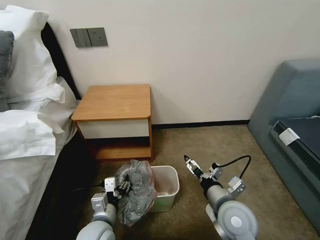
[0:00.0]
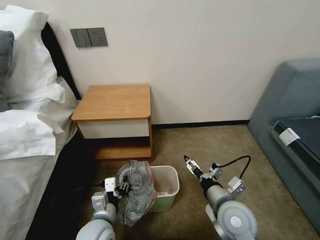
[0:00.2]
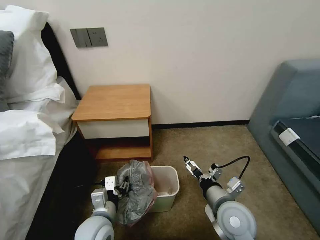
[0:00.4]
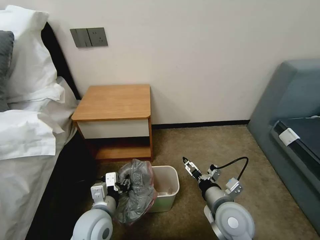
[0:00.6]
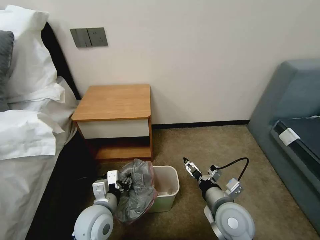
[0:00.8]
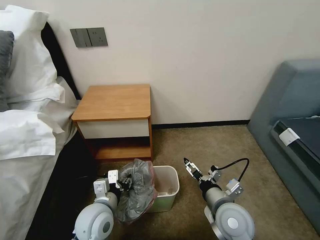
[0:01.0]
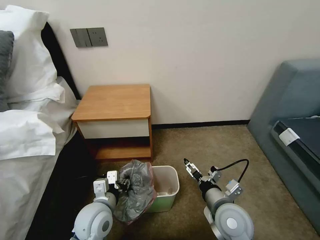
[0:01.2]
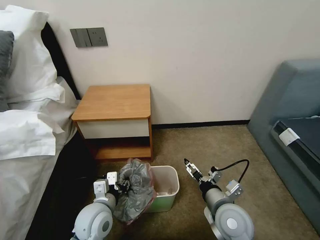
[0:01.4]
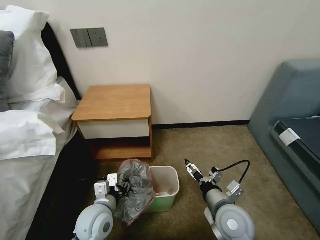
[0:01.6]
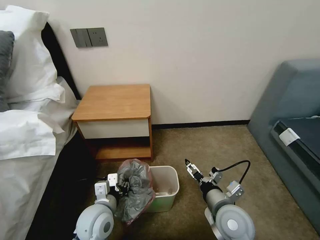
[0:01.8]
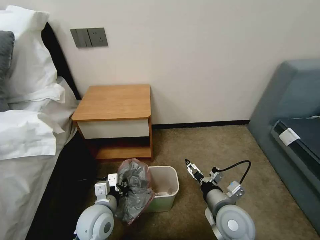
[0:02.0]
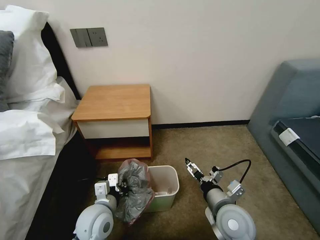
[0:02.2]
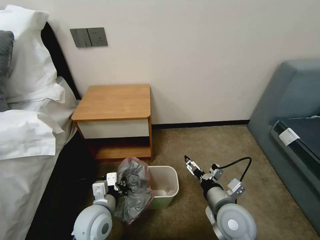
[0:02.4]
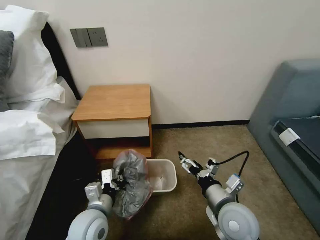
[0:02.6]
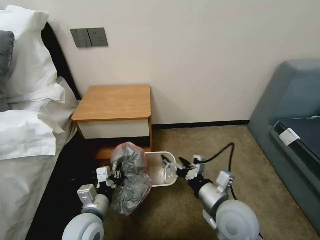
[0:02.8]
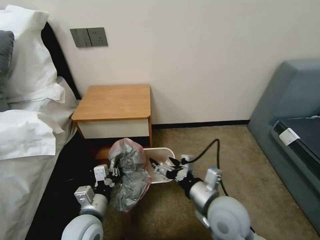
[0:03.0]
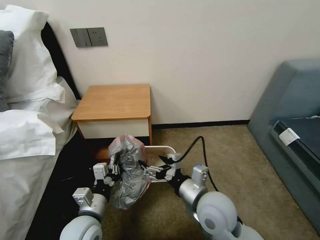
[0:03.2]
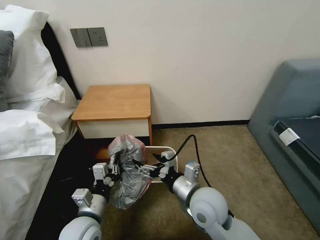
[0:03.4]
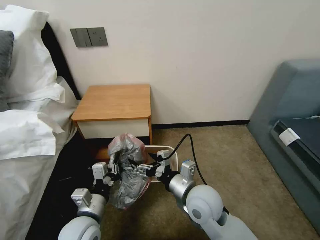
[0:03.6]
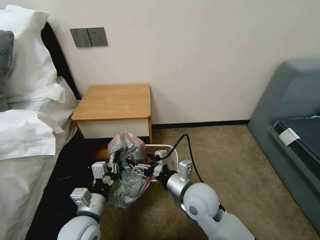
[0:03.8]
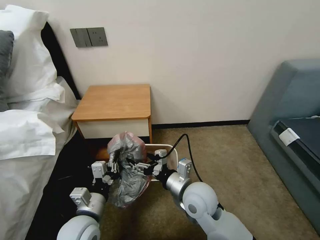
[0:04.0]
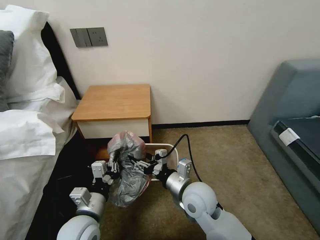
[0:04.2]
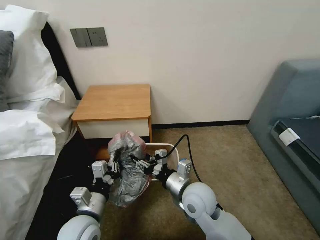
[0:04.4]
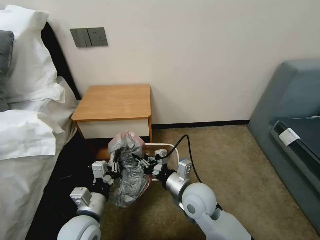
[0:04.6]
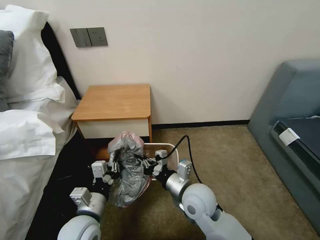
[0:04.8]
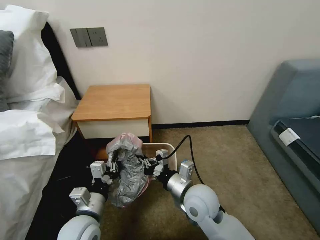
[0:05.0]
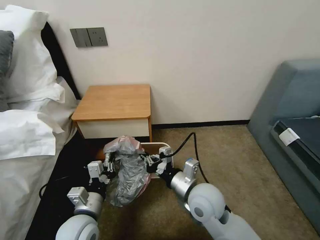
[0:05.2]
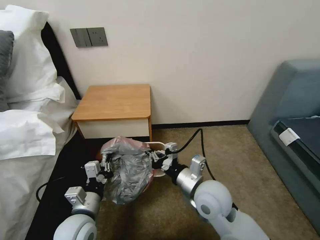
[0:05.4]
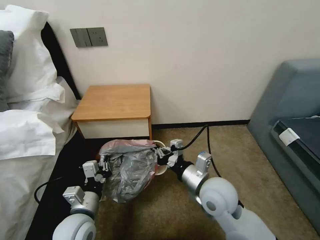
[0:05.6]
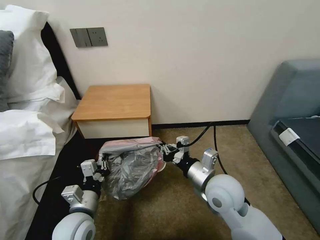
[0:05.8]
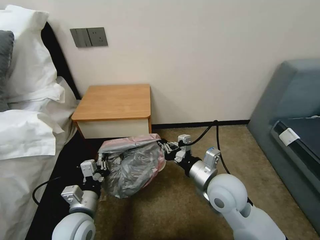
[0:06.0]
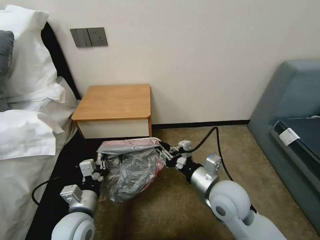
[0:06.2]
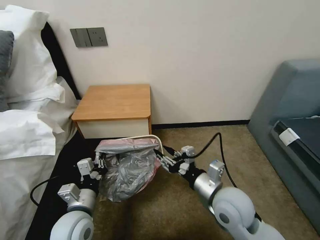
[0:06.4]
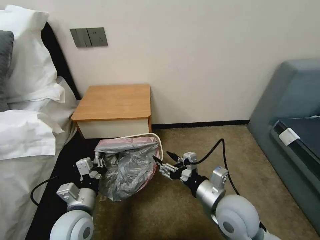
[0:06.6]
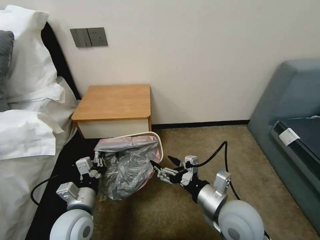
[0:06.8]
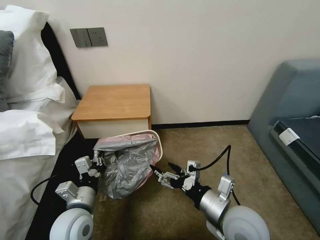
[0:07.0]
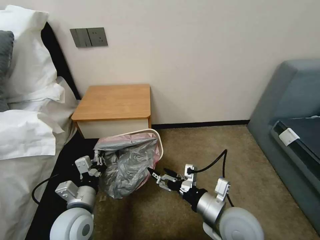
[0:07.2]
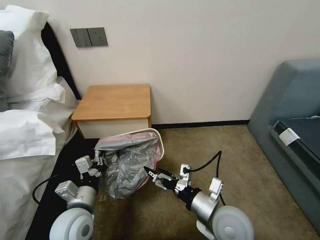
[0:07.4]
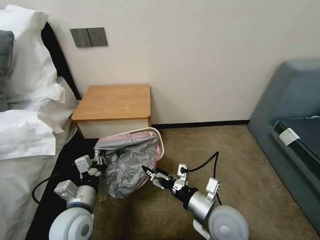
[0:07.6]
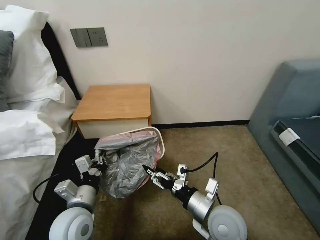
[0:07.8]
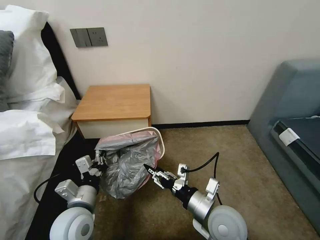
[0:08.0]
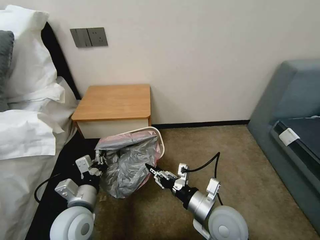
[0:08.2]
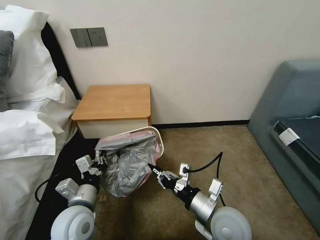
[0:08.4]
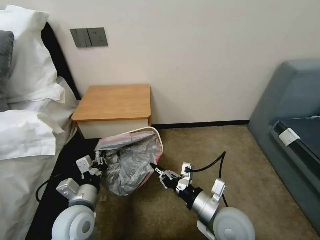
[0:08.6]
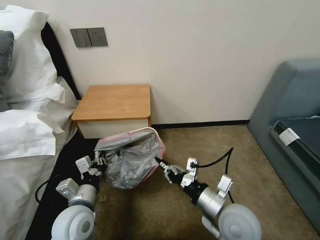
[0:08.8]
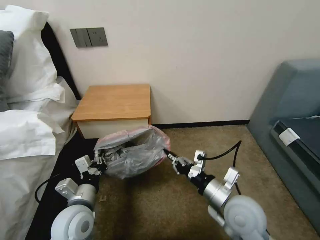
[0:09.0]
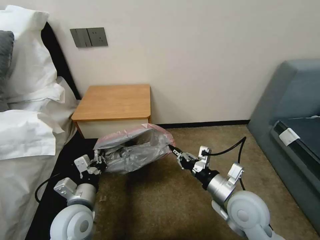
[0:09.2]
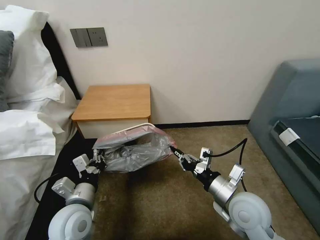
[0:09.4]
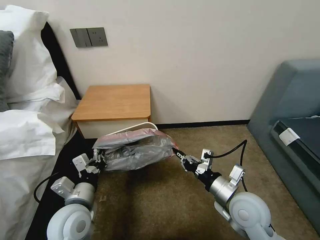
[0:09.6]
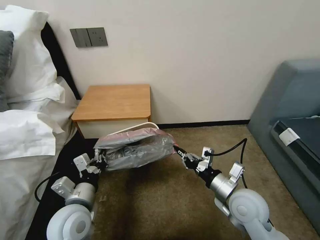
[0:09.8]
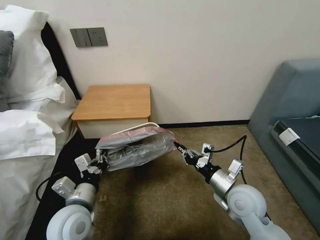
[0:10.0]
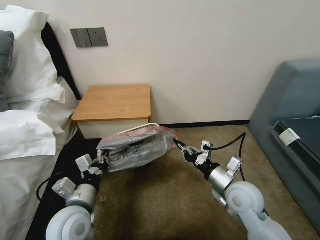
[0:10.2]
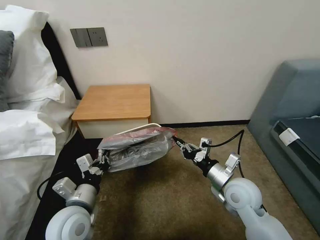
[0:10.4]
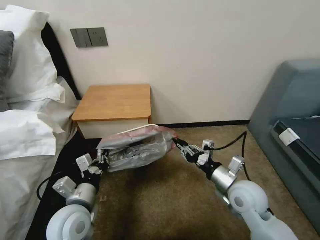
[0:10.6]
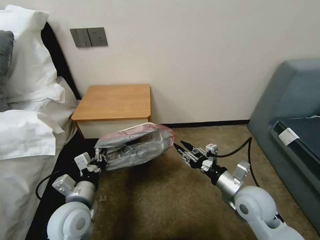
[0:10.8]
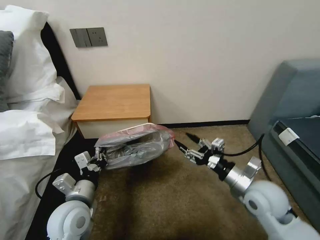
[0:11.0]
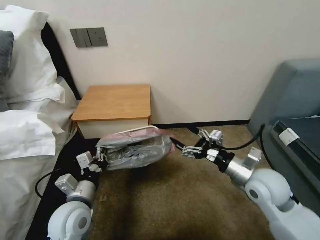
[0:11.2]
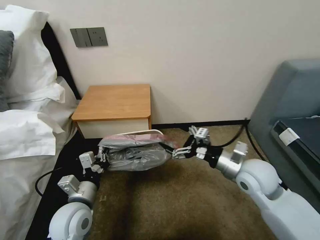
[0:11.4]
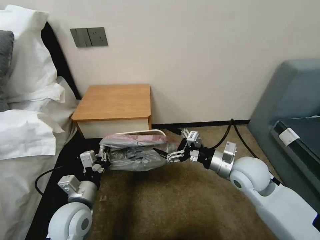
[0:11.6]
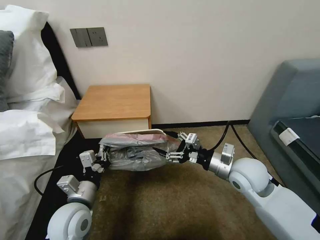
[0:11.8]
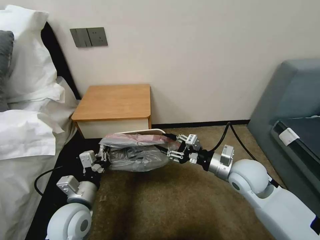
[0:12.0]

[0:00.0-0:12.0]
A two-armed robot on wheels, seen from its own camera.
Task of the whole recording: Pick up the garbage bag from the table and place it over the trash can.
0:00.0 to 0:01.6: The grippers stay close to where they were, moving slightly.
0:01.6 to 0:03.0: The right gripper moves upward, approximately 5 cm. Meanwhile the left gripper closes its fingers.
0:03.0 to 0:04.4: The right gripper shifts by about 10 cm, and closes its fingers.
0:04.4 to 0:06.0: The right gripper heads to the right and upward, covering roughly 10 cm, and closes up.
0:06.0 to 0:07.6: The right gripper travels backward by about 5 cm, and opens its fingers.
0:07.6 to 0:09.0: The right gripper closes.
0:09.0 to 0:10.4: The right gripper goes about 5 cm forward.
0:10.4 to 0:12.0: The right gripper moves approximately 5 cm, and opens its fingers.

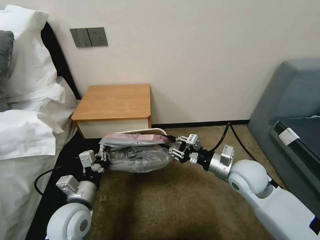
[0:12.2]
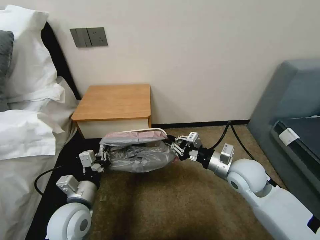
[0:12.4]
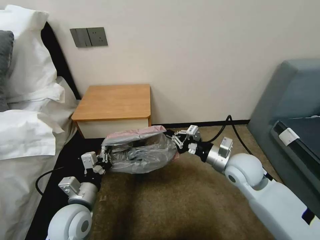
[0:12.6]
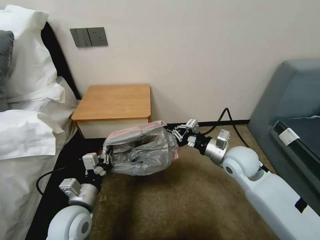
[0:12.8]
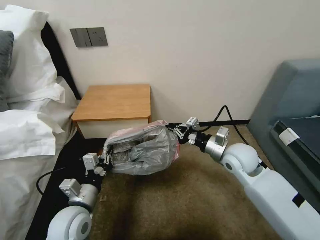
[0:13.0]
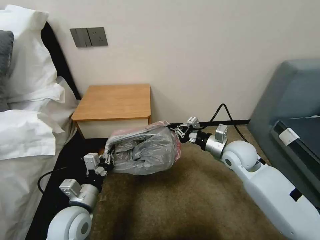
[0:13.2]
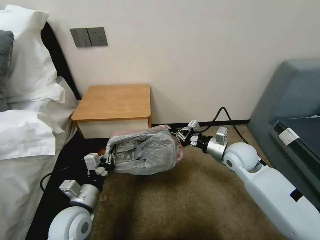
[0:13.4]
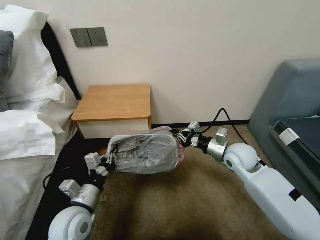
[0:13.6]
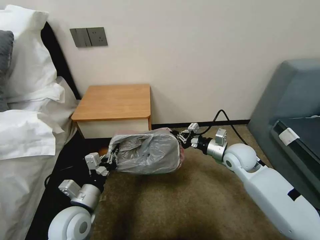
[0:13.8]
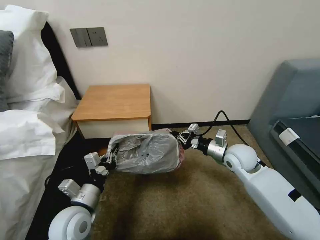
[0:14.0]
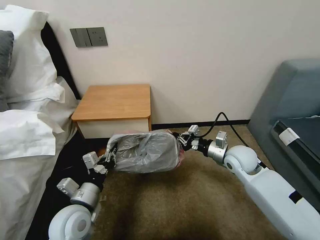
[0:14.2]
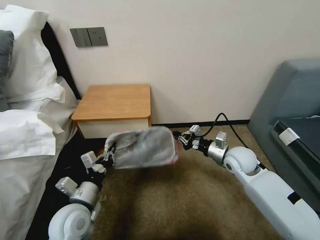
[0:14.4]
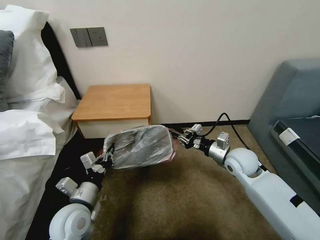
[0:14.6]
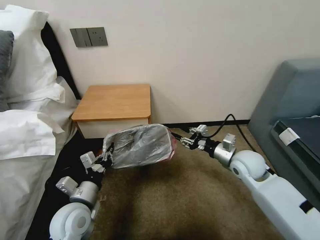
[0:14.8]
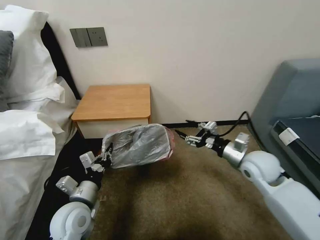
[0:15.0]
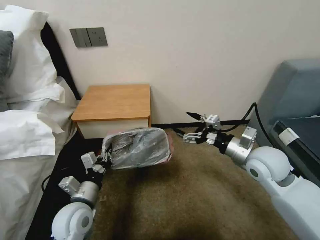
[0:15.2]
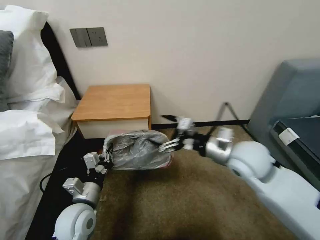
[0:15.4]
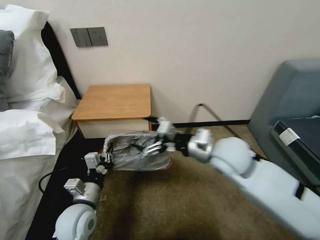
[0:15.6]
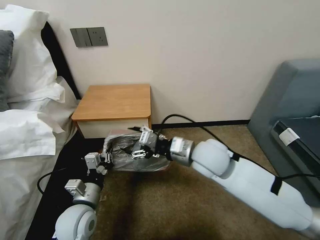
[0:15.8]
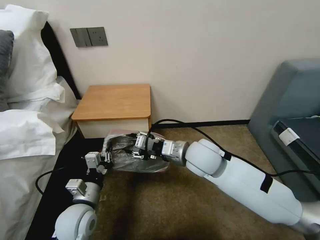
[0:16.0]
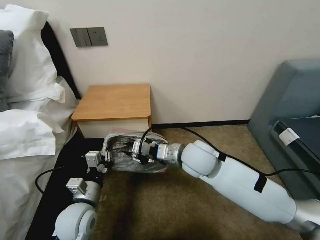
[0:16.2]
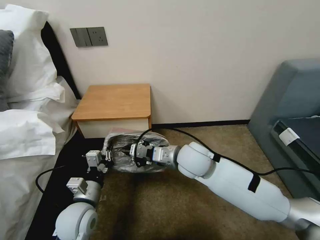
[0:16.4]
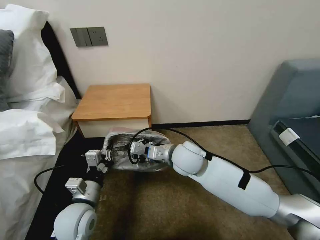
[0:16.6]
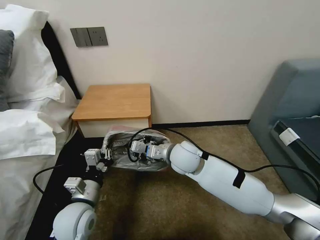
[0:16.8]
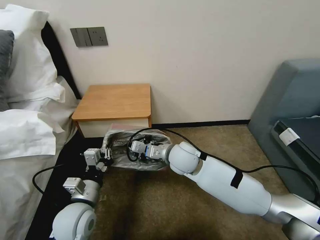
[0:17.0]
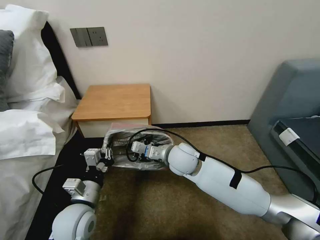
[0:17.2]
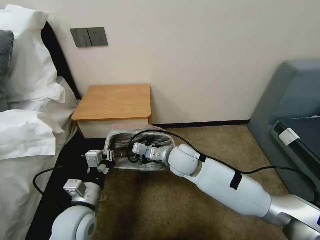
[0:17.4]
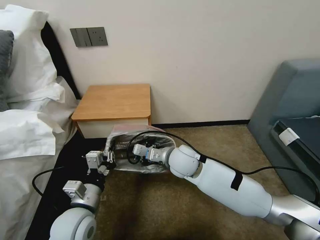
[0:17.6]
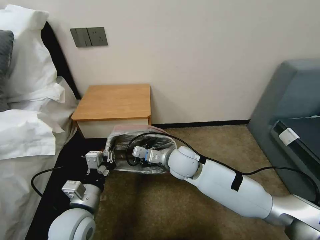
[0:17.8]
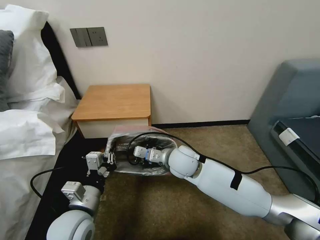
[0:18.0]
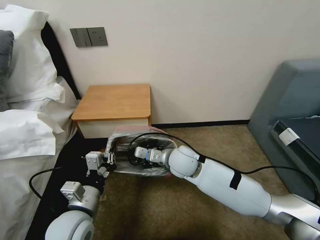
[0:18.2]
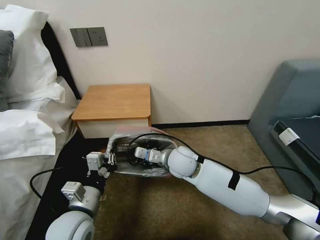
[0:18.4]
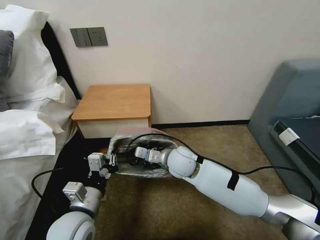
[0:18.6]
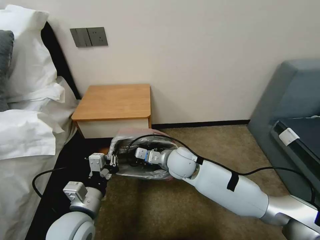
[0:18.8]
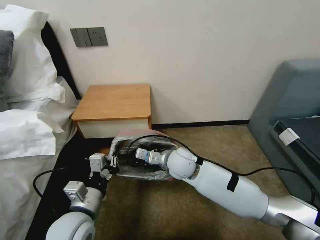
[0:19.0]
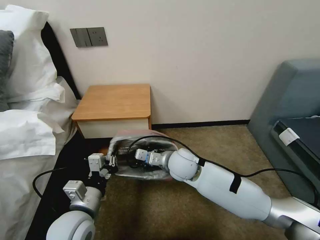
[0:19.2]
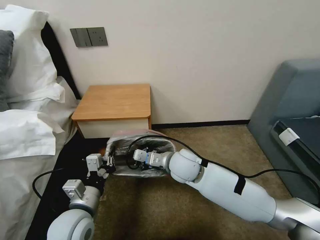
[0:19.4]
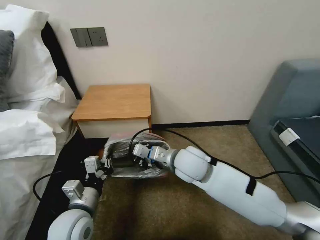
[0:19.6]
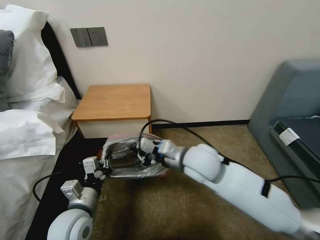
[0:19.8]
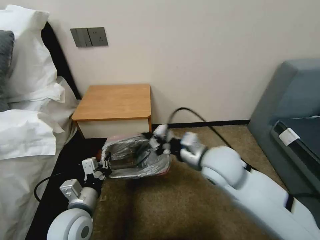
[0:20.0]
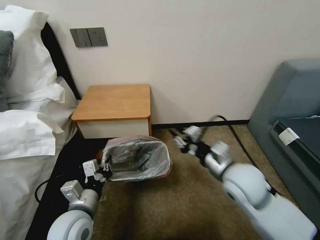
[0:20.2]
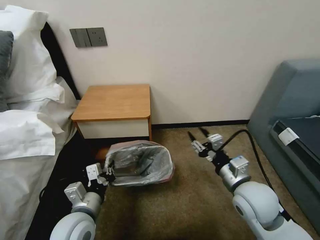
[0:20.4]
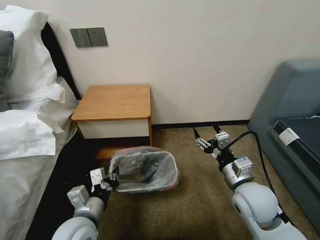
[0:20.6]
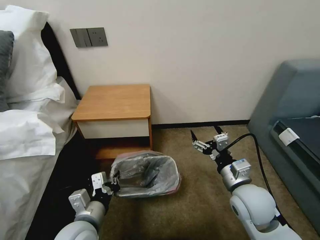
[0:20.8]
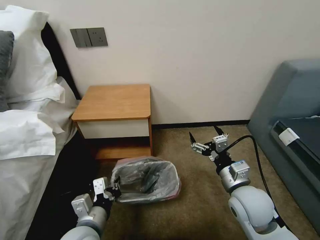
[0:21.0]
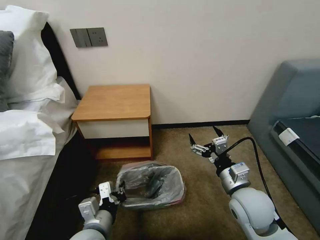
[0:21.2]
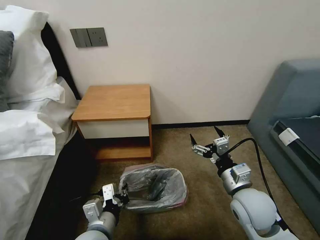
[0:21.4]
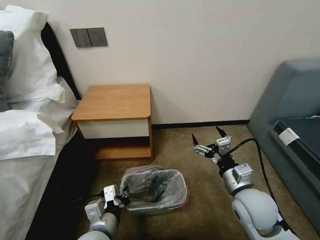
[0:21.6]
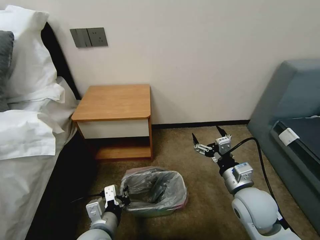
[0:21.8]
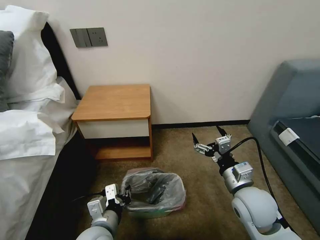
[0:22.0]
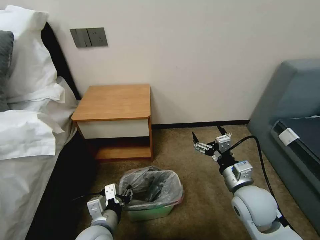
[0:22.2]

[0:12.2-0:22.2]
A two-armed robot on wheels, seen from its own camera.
Task of the whole recording: Pick up the garbage bag from the table and place it over the trash can.
0:12.2 to 0:13.6: The right gripper travels forward by approximately 10 cm.
0:13.6 to 0:15.0: The right gripper shifts some 5 cm backward, and opens up.
0:15.0 to 0:16.4: The right gripper is displaced to the left by about 20 cm, and closes.
0:16.4 to 0:18.0: The left gripper changes place by roughly 5 cm, while the right gripper shifts by approximately 5 cm.
0:18.0 to 0:19.4: The grippers move only a little.
0:19.4 to 0:20.8: The right gripper travels to the right and backward by approximately 20 cm, and opens up.
0:20.8 to 0:22.2: The left gripper opens its fingers.
